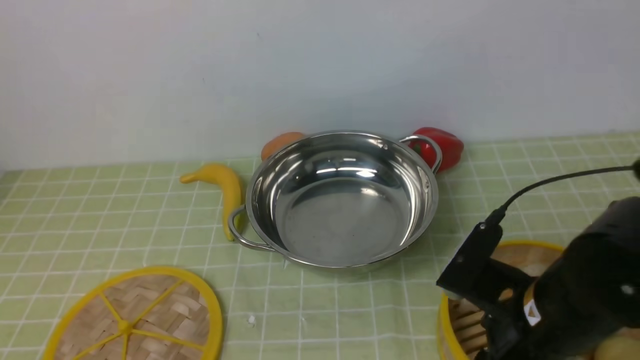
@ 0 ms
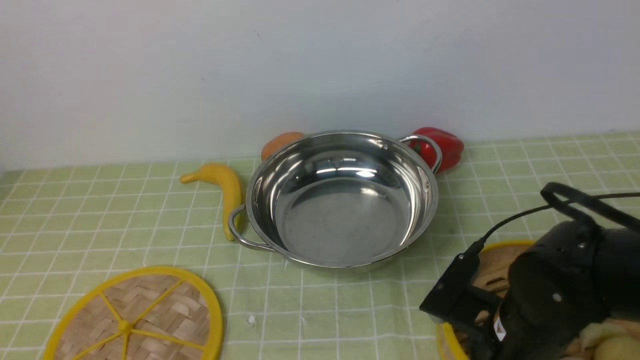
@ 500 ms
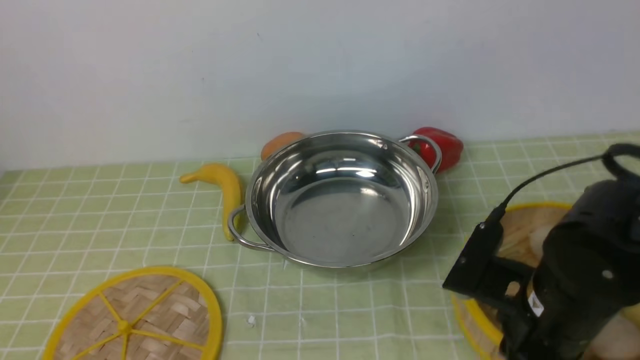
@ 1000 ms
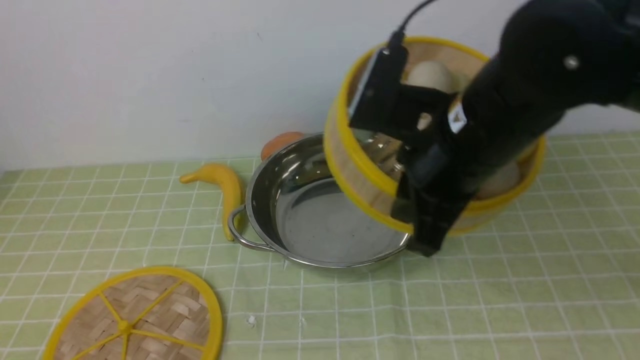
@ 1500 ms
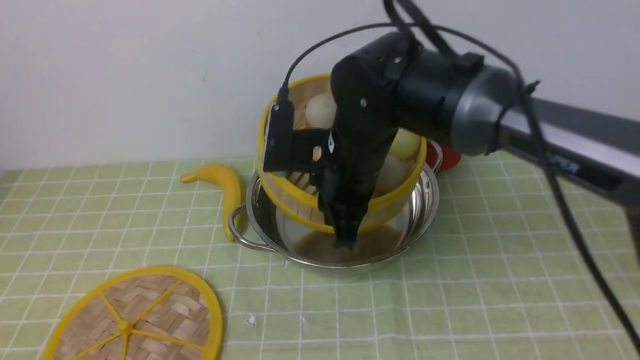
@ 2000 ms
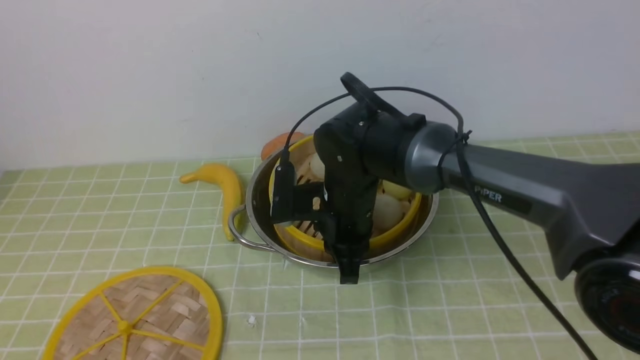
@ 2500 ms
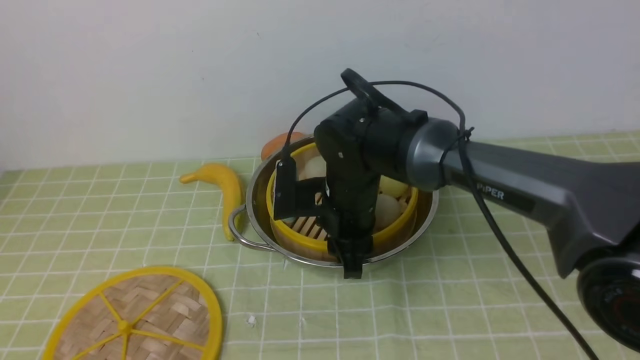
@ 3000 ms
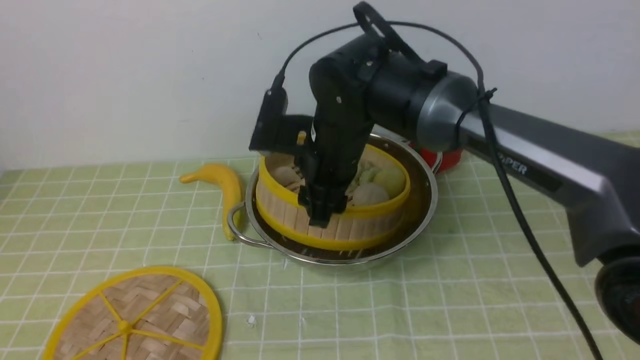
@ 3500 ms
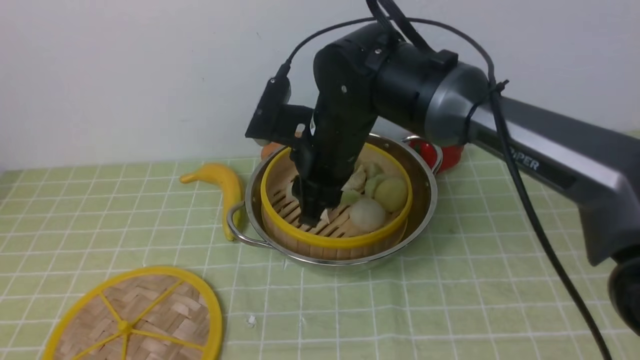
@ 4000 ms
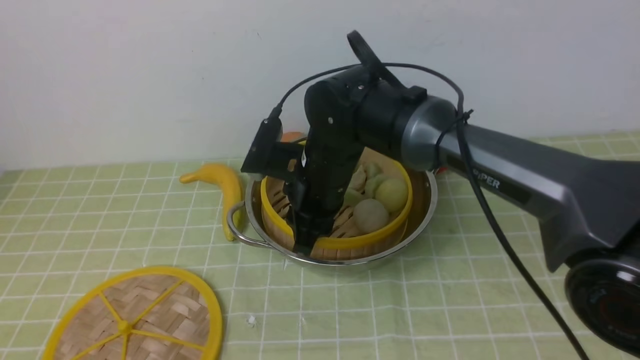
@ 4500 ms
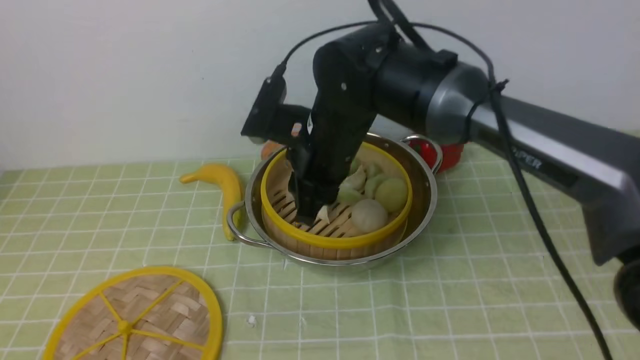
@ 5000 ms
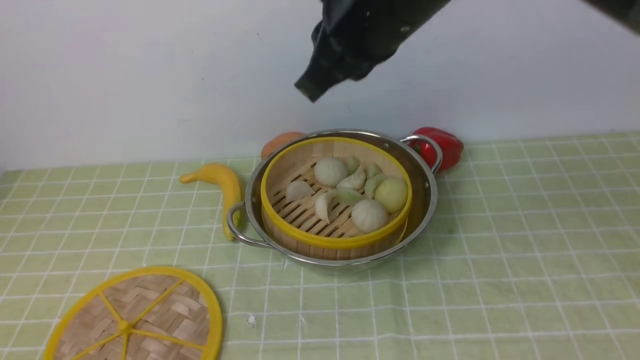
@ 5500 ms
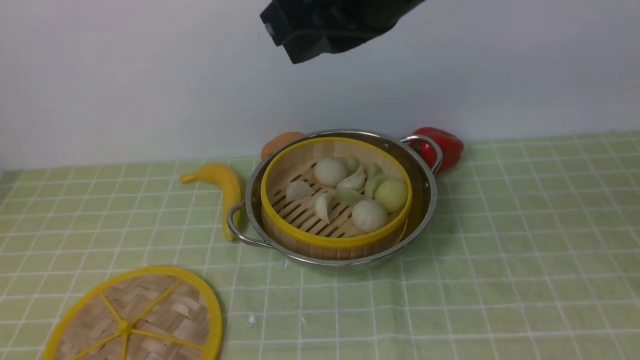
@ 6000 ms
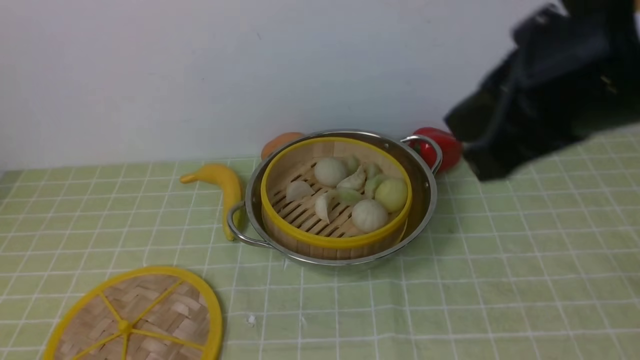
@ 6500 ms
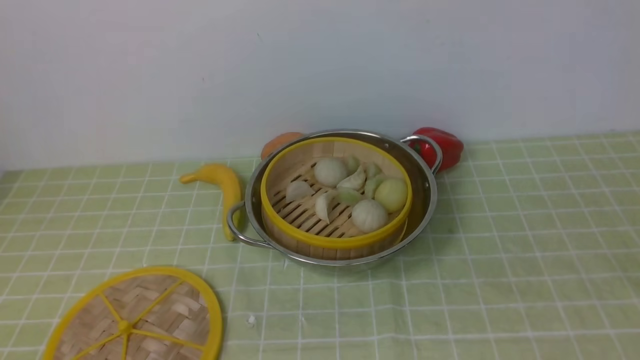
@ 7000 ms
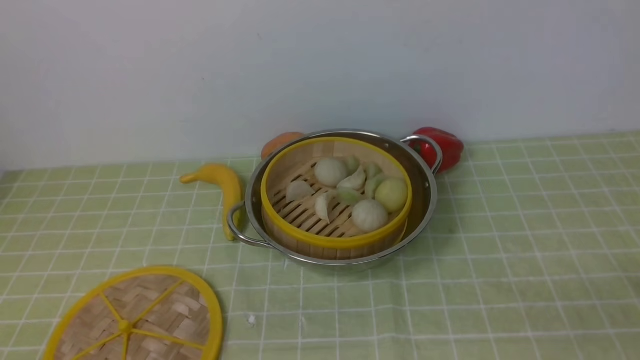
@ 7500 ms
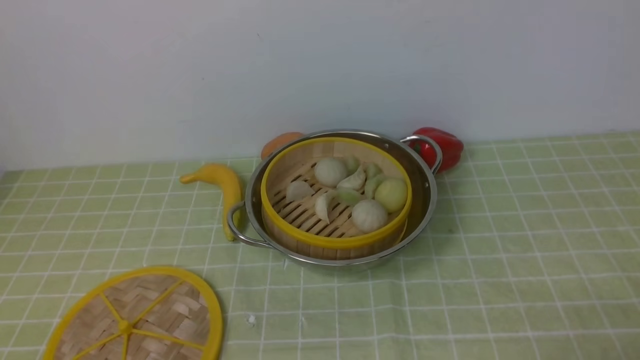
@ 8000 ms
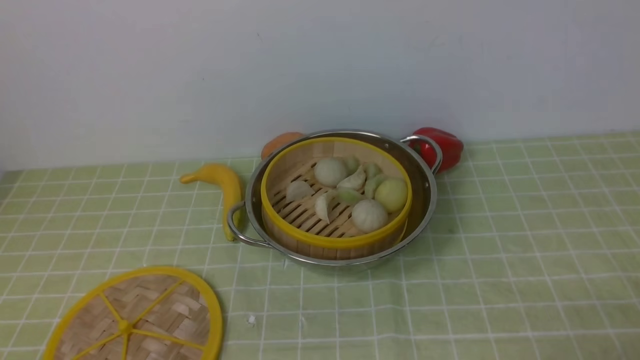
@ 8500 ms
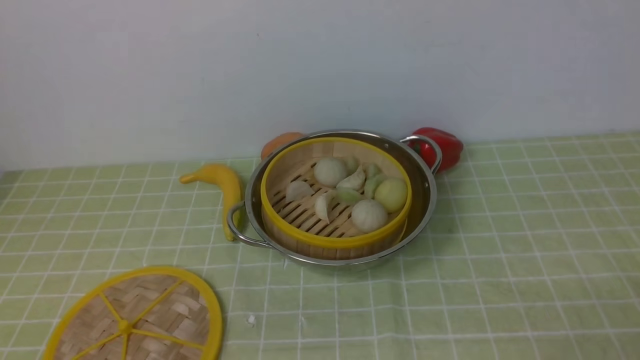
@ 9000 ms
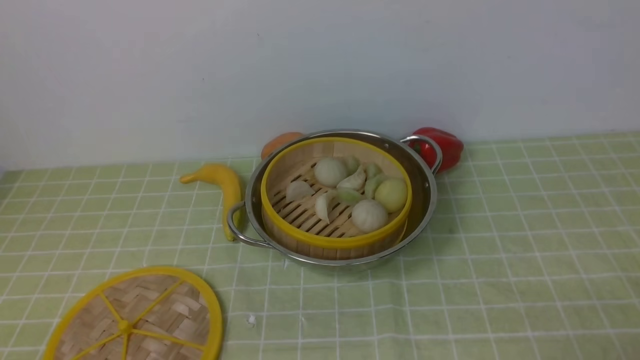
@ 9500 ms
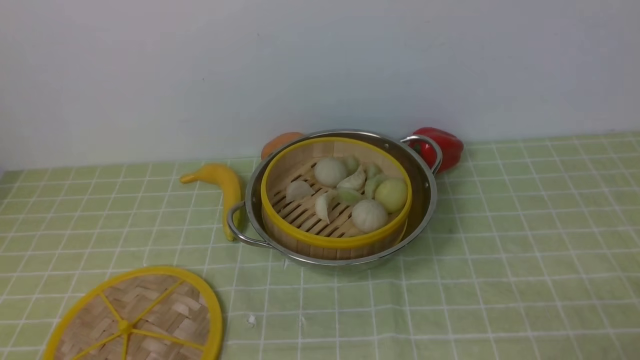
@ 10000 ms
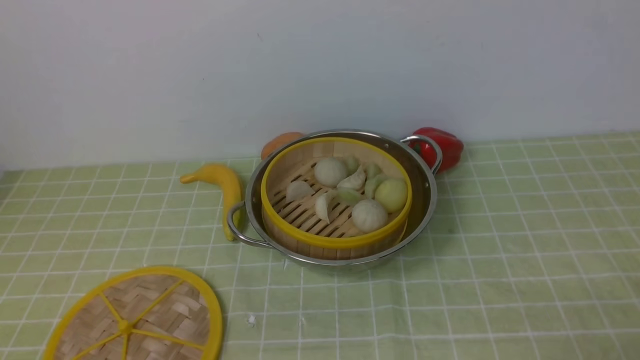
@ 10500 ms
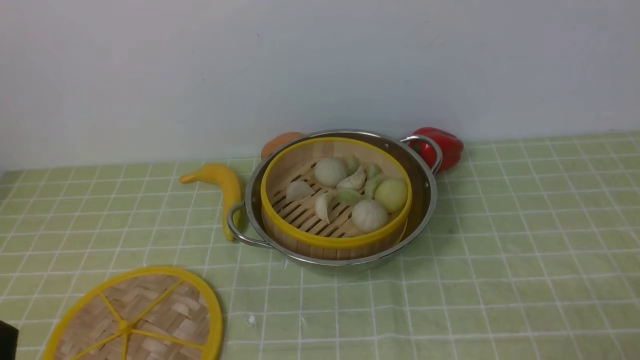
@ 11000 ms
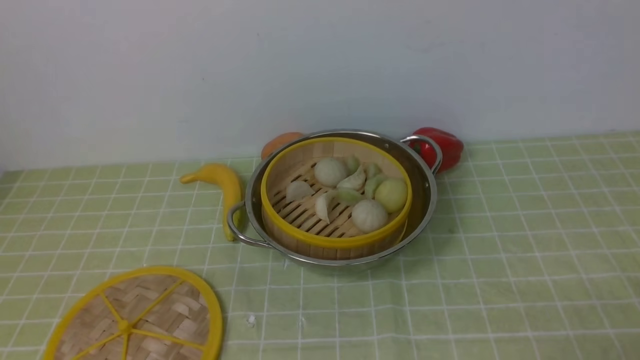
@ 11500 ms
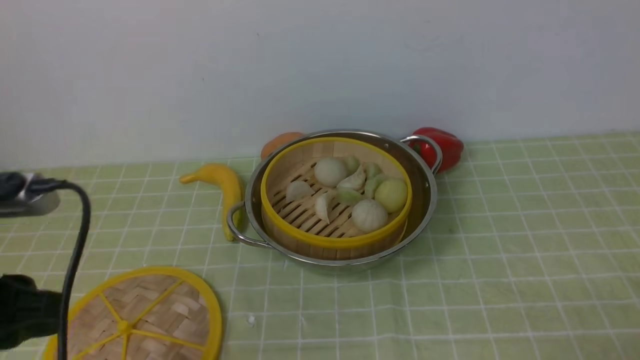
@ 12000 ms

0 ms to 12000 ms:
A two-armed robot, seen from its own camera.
Task of the whole recording: place the steamer in the pot on the green tablecloth, and put the lid on the steamer.
Step, 1500 ms to 5500 ms: use the right arm to put the steamer into the iron steamer pot in the middle.
0 ms to 2000 ms: The right gripper travels forward and to the left by about 20 cm, and closes.
2000 ms to 4000 ms: The right gripper travels downward and back again, about 5 cm each way, and opens.
4000 ms to 6000 ms: The right gripper heads upward and backward, covering some 20 cm, and closes its fingers.
6000 ms to 8000 ms: The right gripper shifts about 40 cm downward, to the right and backward, and opens its fingers.
10000 ms to 12000 ms: The left gripper goes about 15 cm upward and forward.

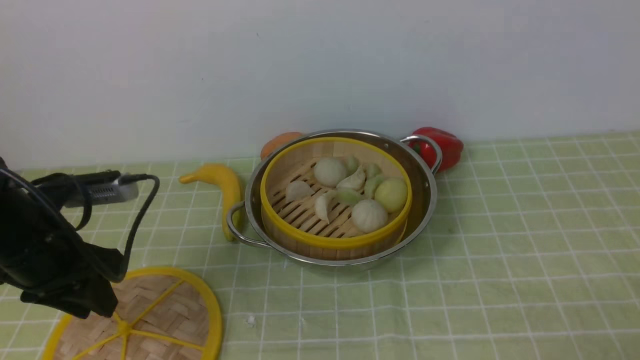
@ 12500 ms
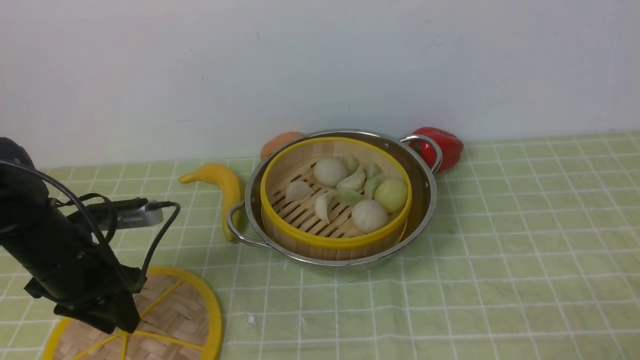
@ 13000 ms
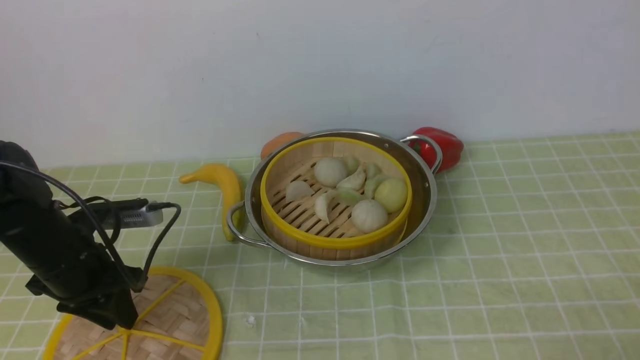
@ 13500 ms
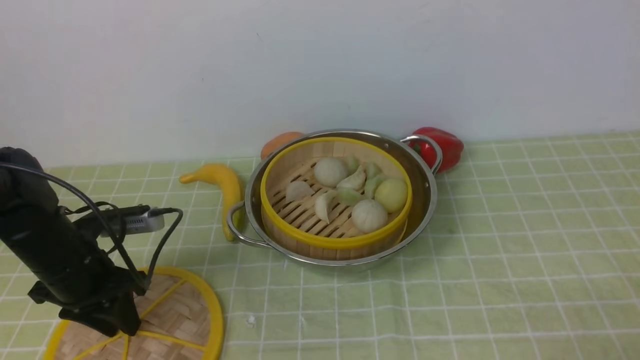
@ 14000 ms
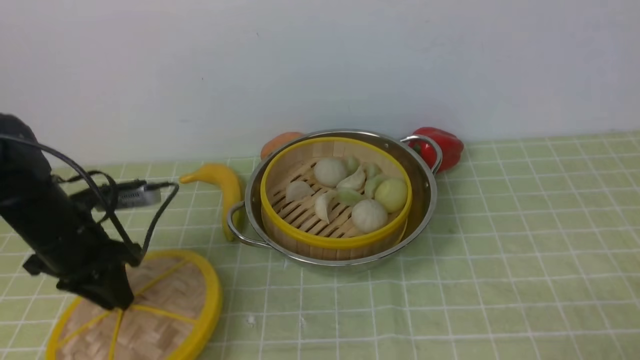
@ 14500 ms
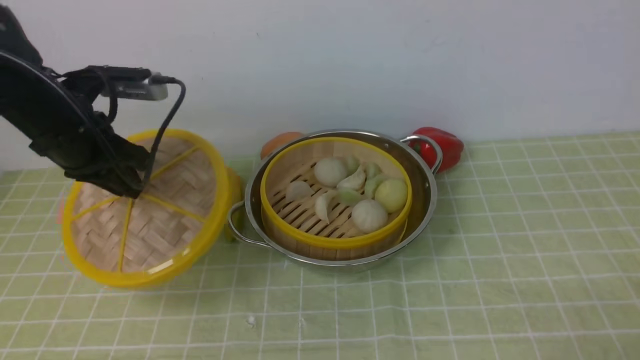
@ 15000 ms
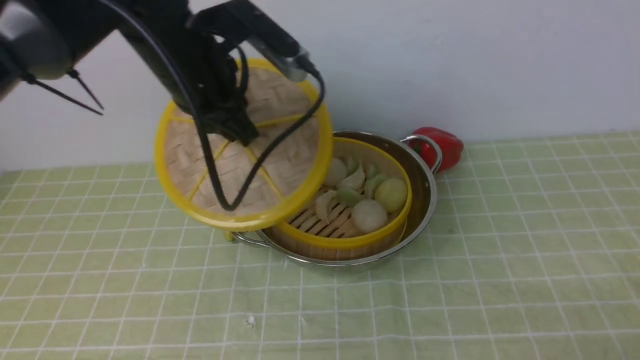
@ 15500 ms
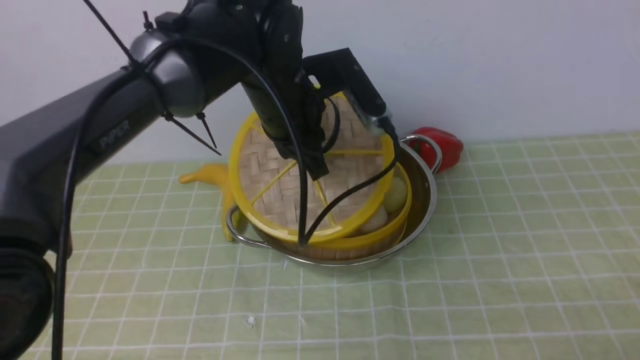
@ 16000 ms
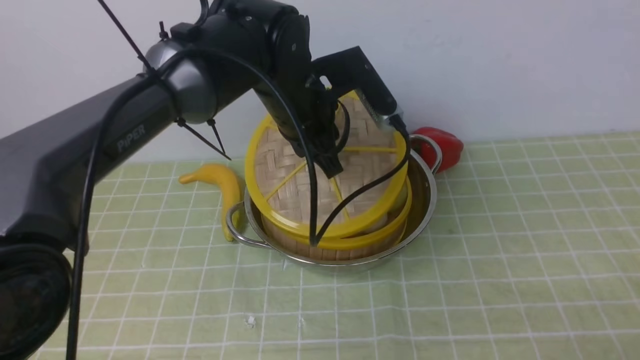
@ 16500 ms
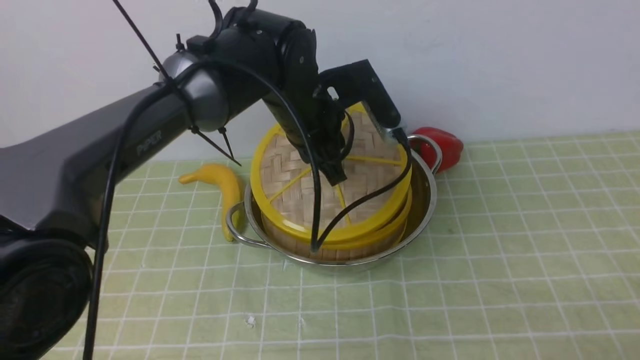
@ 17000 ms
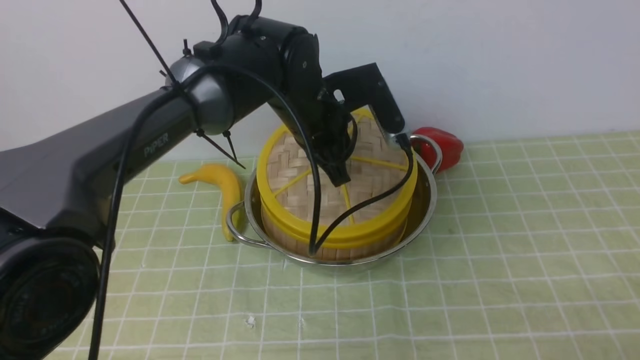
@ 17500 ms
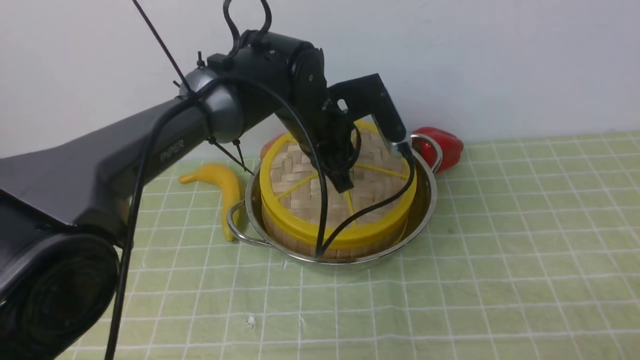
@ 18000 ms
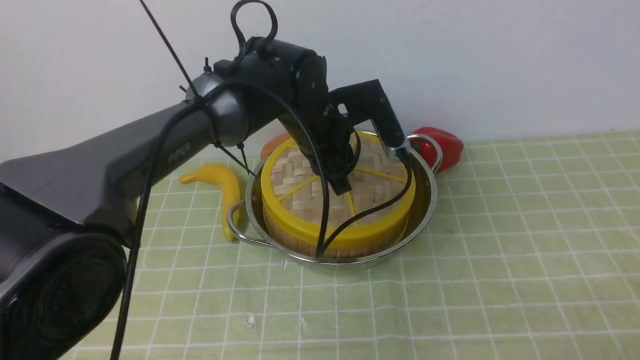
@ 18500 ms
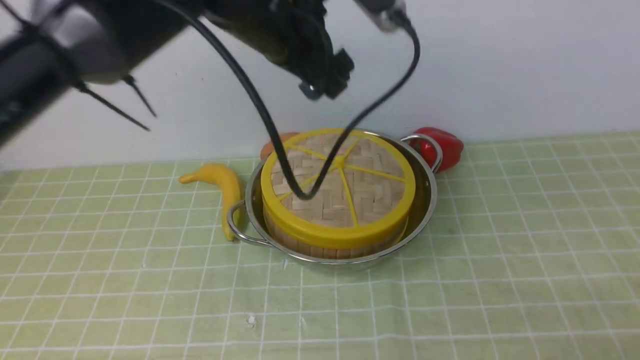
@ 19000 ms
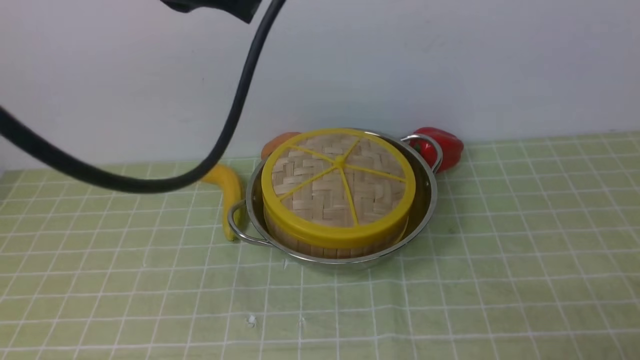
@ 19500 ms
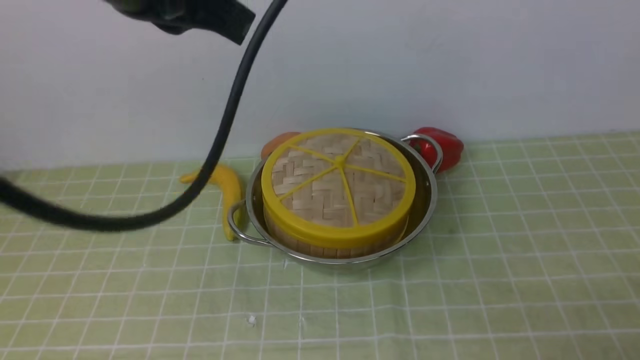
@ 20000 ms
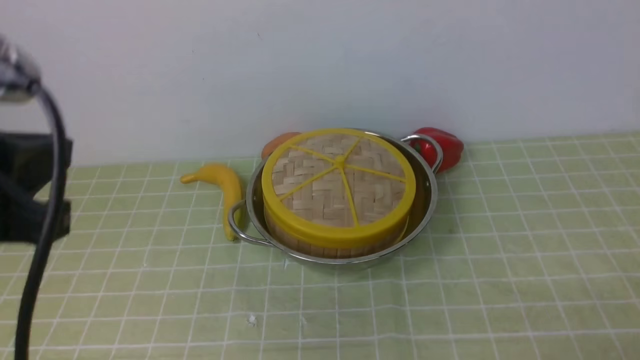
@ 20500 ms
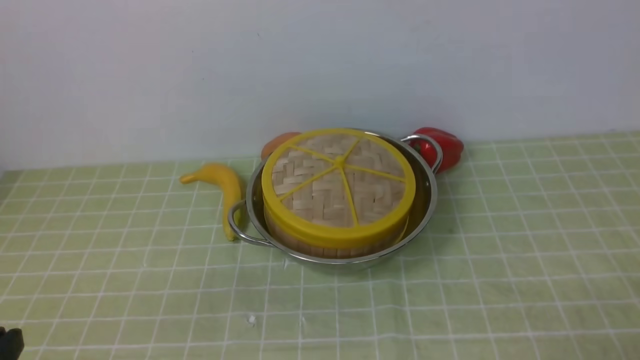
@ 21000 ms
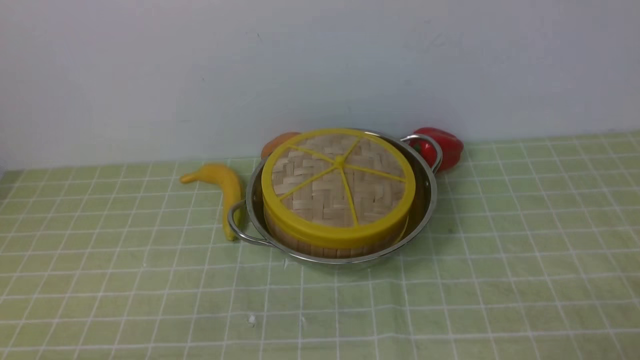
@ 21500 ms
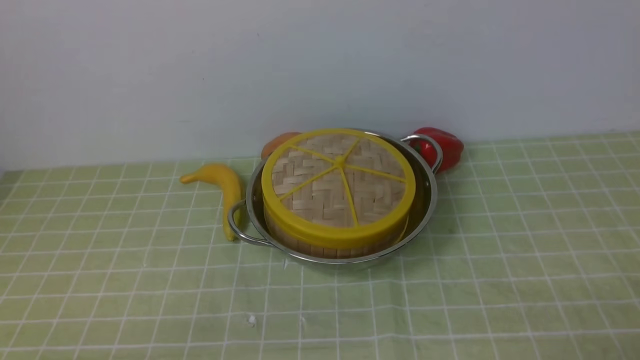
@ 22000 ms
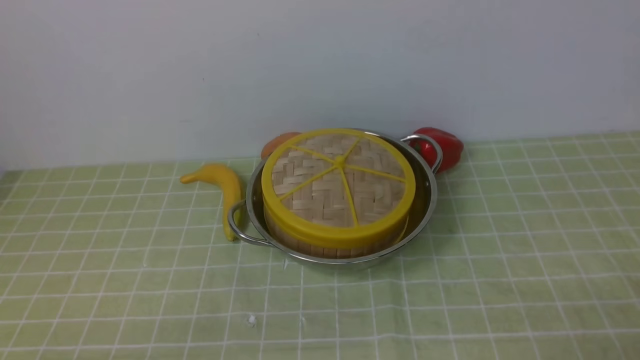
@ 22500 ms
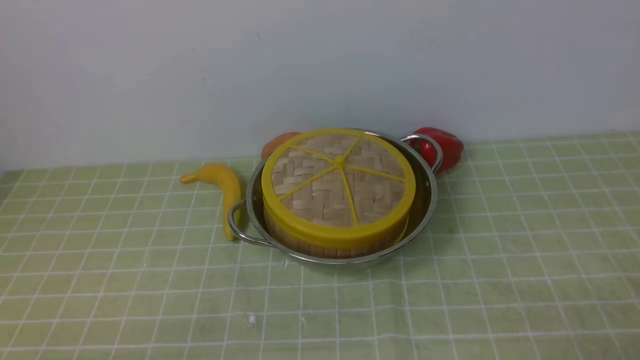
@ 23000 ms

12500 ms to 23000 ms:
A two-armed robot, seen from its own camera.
Task of the whole recording: place the steamer in the pot on the green tablecloth, and put the lid on the steamer.
Step, 12500 ms to 14500 ms: use the left arm to lift the lid of the steamer.
Step, 15000 ms to 19000 ms: use the left arm to place the steamer lid on the steamer.
12500 ms to 14500 ms: The left gripper moves forward, some 5 cm.
14500 ms to 16500 ms: The left gripper travels to the right by about 25 cm.
16500 ms to 19000 ms: The left gripper moves upward, some 10 cm, and opens up.
19000 ms to 21000 ms: The left gripper heads backward, to the left and downward, covering some 40 cm, and closes its fingers.
